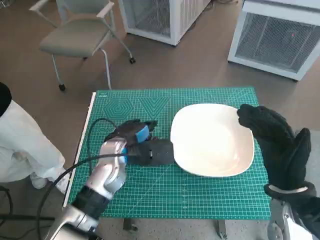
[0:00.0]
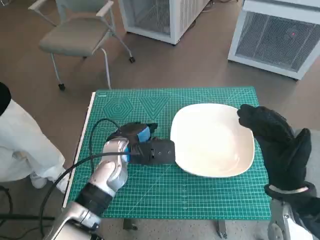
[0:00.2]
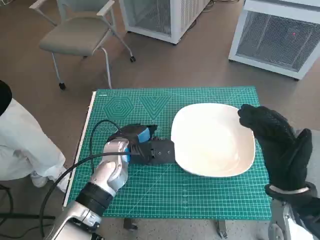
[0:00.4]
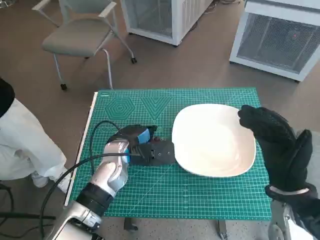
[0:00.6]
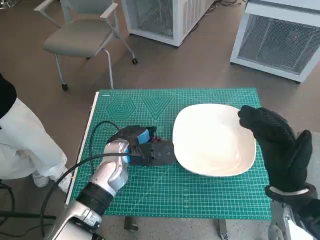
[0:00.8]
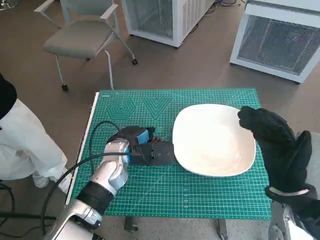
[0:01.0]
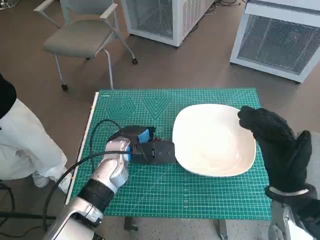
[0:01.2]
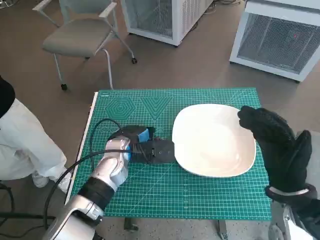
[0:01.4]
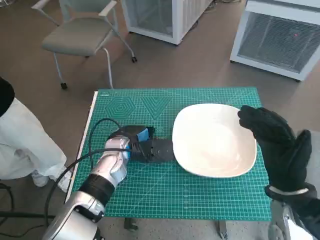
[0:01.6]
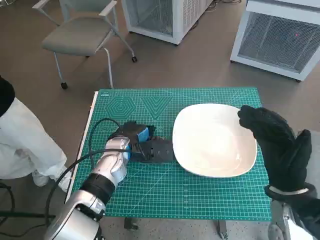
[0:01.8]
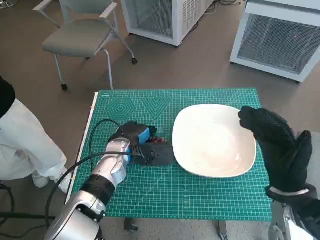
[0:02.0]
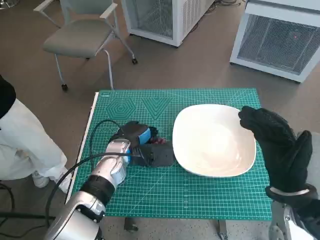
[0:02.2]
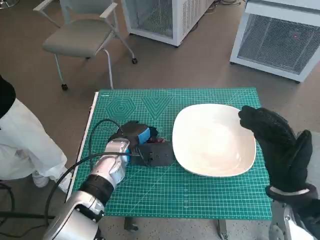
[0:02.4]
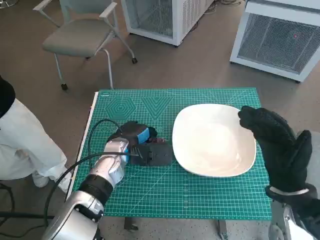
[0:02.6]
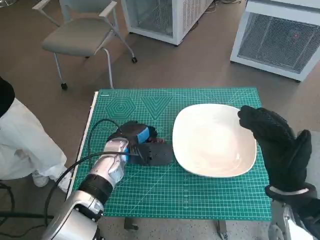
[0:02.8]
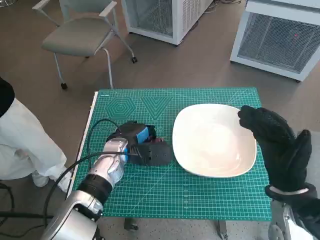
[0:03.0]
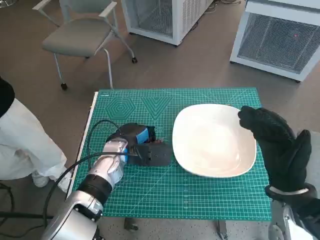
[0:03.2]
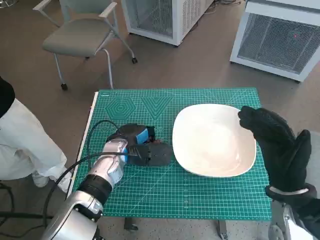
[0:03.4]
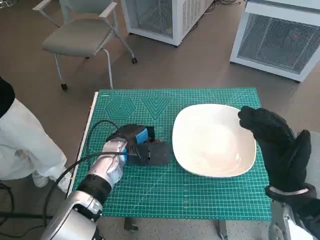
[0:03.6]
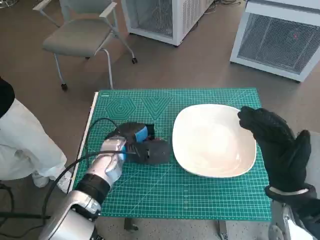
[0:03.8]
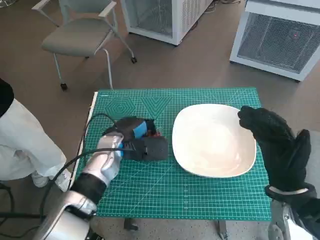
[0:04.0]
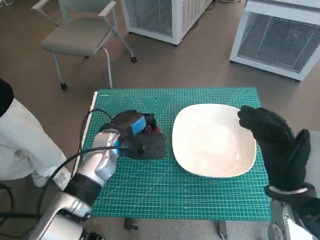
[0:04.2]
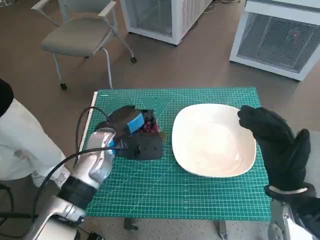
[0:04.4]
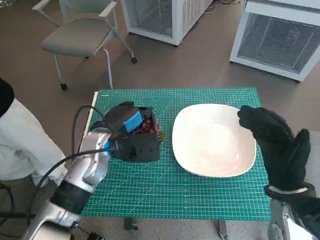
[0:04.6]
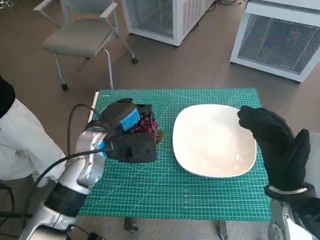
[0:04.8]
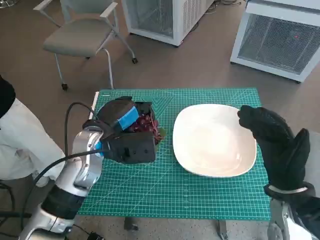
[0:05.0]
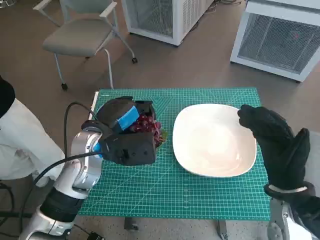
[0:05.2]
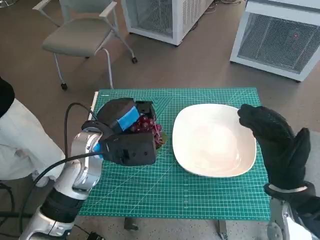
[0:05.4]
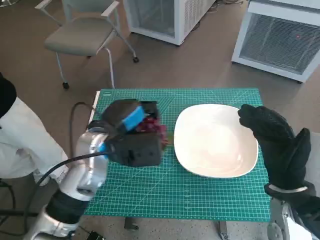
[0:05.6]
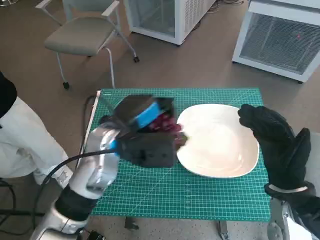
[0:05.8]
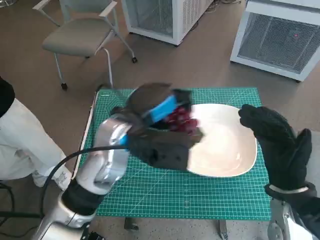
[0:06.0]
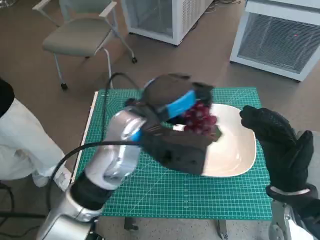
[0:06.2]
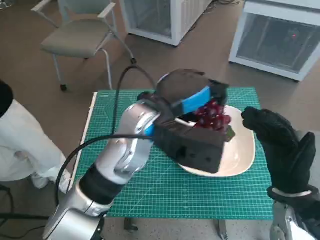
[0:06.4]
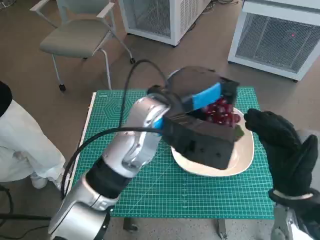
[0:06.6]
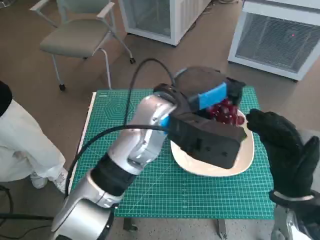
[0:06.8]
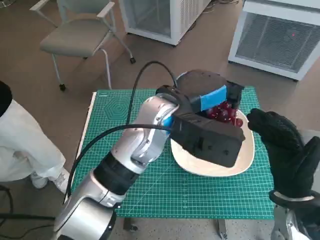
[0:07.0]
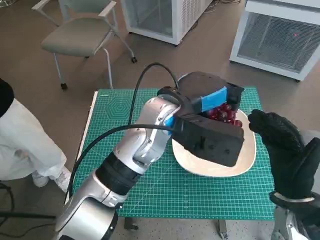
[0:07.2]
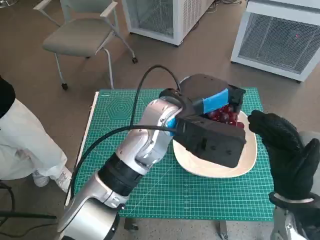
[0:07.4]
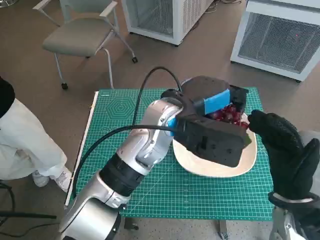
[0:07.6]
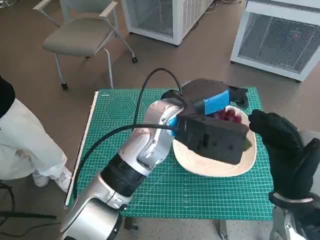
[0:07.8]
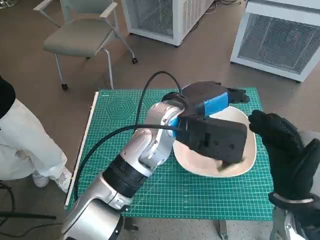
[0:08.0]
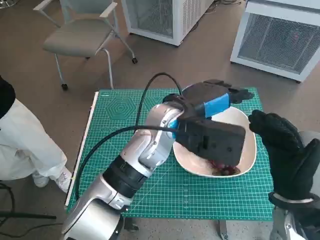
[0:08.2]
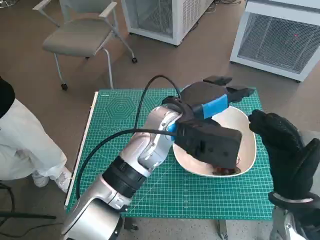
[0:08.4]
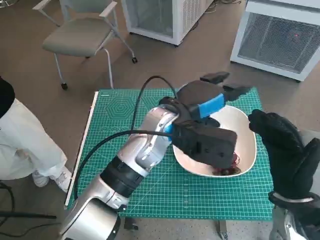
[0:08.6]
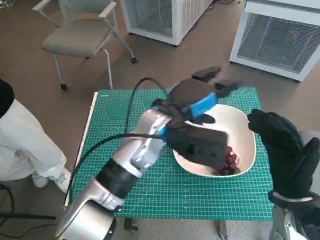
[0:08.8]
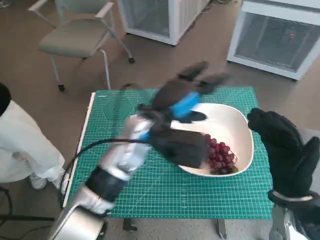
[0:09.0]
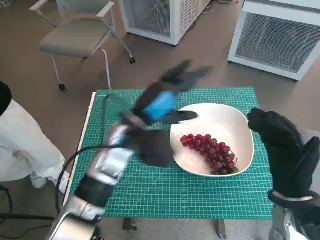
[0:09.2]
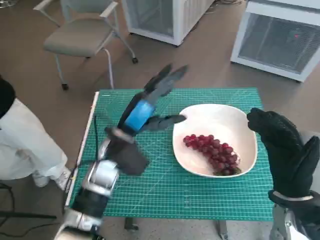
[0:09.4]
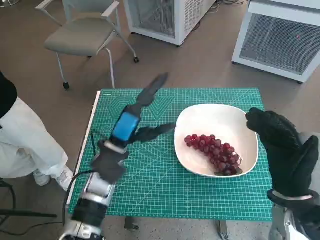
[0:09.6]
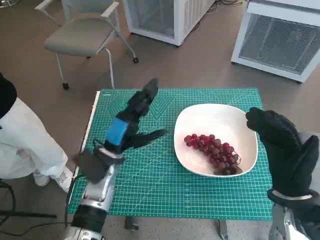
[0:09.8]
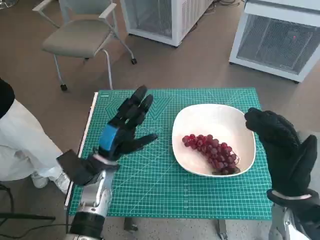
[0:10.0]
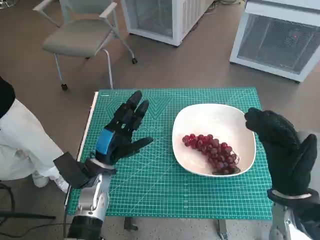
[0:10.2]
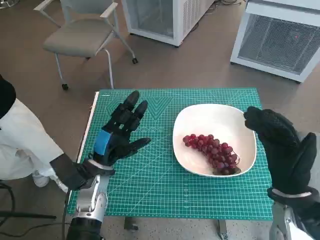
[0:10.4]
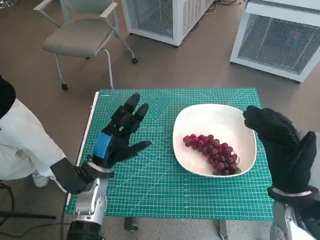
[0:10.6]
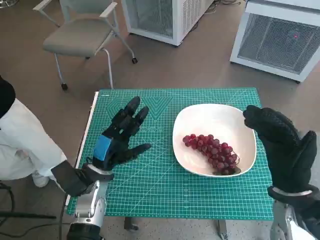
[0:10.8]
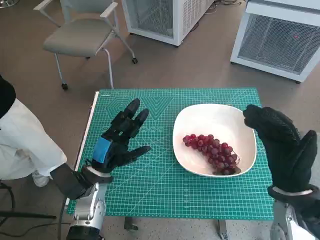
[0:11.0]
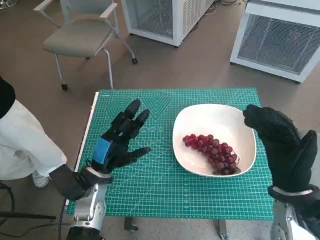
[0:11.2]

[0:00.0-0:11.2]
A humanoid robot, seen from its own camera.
Task of the whole recording: Pick up the grapes and put them on the plate.
Step, 0:00.0 to 0:03.4: Grasp the grapes with left hand.
Step, 0:03.6 to 0:08.0: Place the grapes in the plate with left hand.
0:00.0 to 0:03.2: There are only small adjustments of the hands.
0:03.2 to 0:04.8: The left hand is displaced upward by some 5 cm.
0:04.8 to 0:06.4: The left hand is displaced to the right and upward by some 15 cm.
0:08.0 to 0:09.6: The left hand travels to the left and downward by approximately 15 cm.
0:09.6 to 0:11.2: The left hand shifts about 5 cm downward.

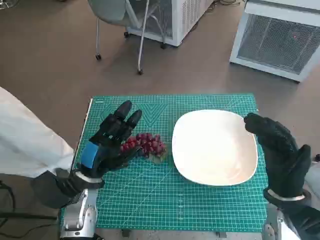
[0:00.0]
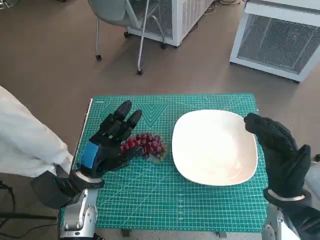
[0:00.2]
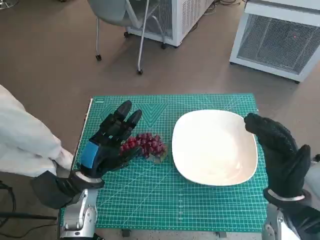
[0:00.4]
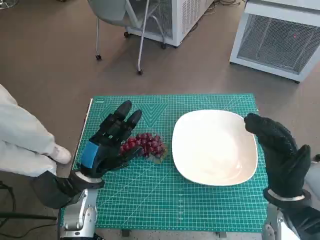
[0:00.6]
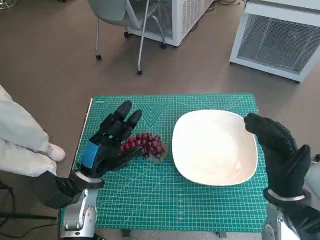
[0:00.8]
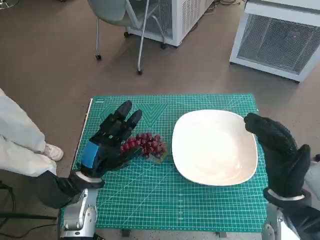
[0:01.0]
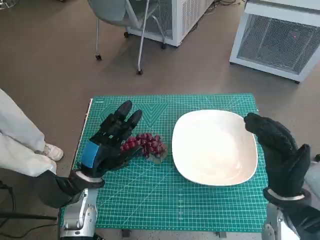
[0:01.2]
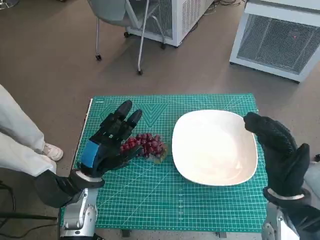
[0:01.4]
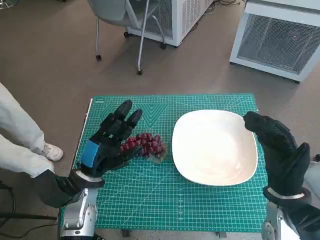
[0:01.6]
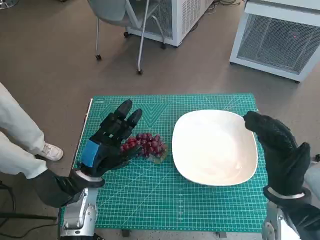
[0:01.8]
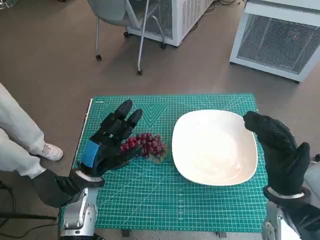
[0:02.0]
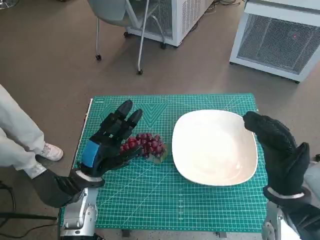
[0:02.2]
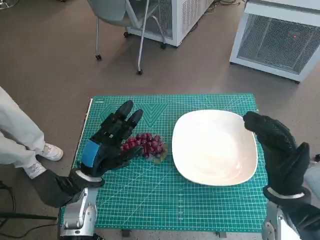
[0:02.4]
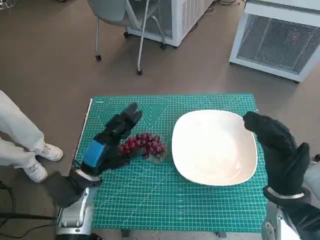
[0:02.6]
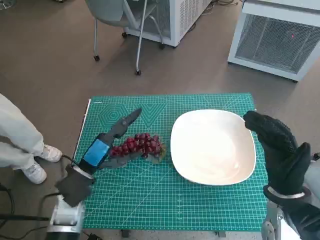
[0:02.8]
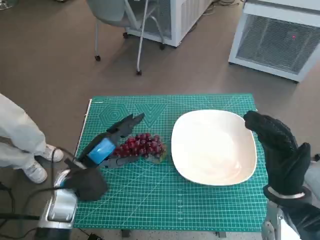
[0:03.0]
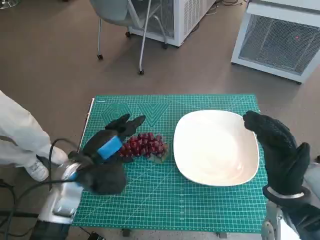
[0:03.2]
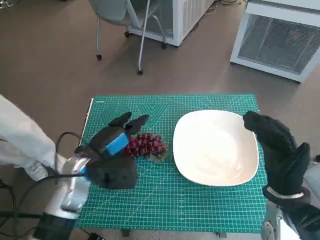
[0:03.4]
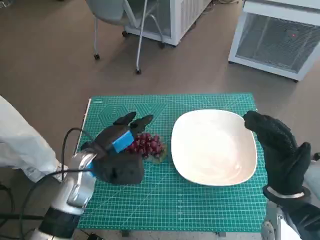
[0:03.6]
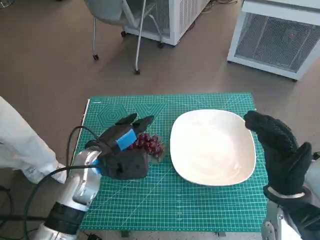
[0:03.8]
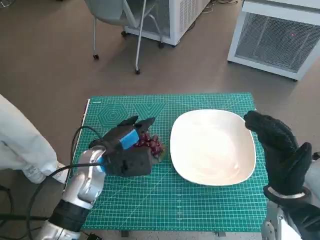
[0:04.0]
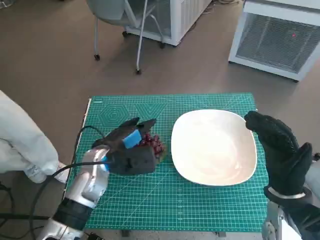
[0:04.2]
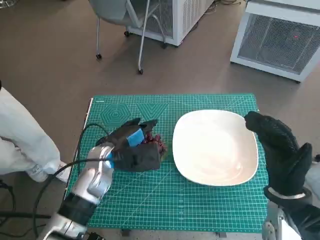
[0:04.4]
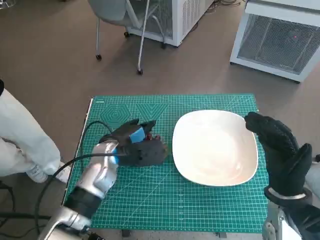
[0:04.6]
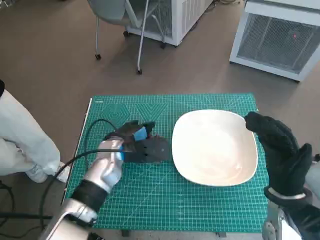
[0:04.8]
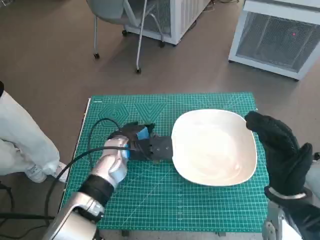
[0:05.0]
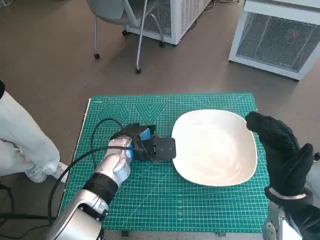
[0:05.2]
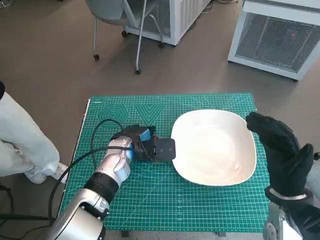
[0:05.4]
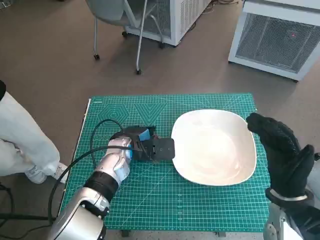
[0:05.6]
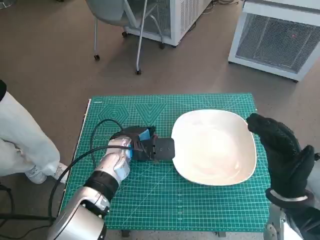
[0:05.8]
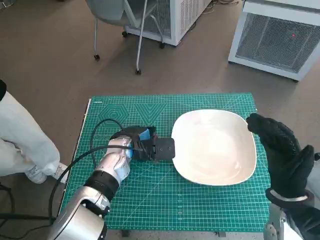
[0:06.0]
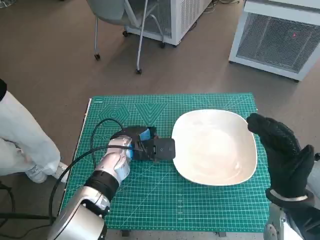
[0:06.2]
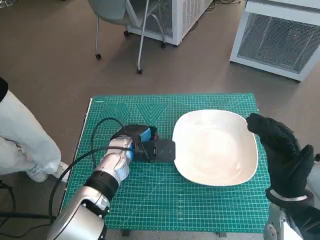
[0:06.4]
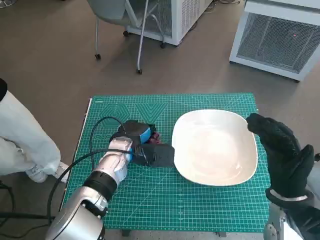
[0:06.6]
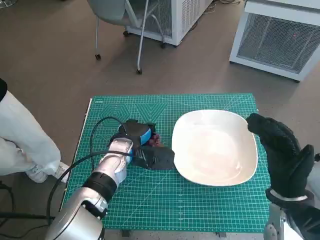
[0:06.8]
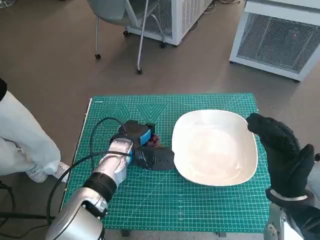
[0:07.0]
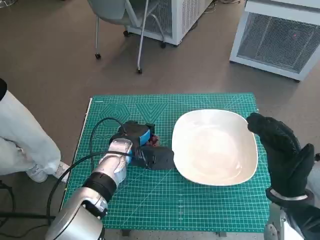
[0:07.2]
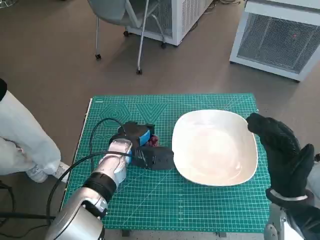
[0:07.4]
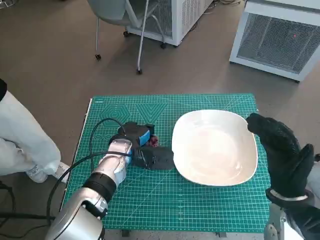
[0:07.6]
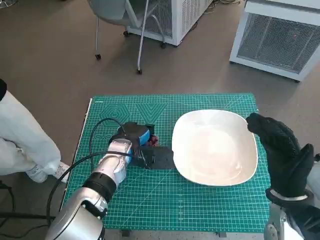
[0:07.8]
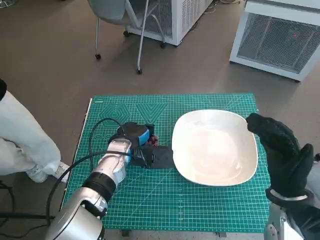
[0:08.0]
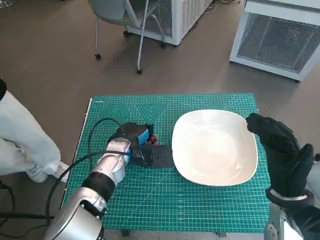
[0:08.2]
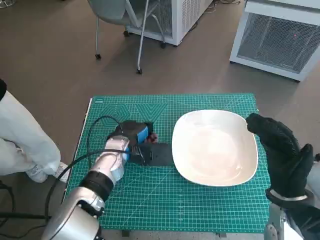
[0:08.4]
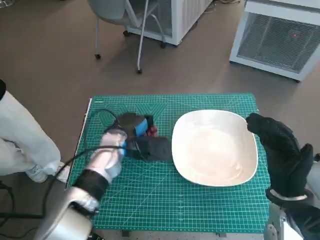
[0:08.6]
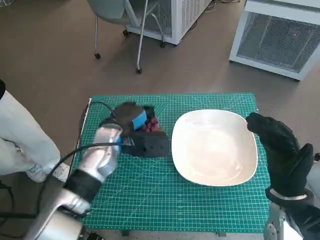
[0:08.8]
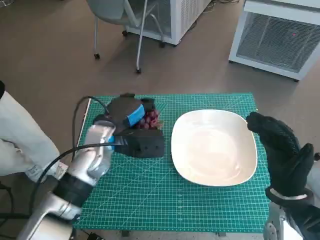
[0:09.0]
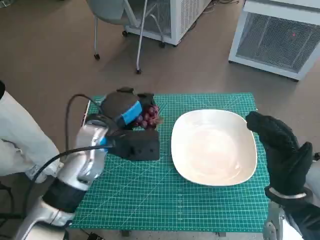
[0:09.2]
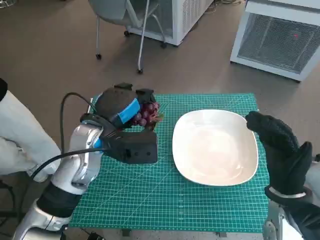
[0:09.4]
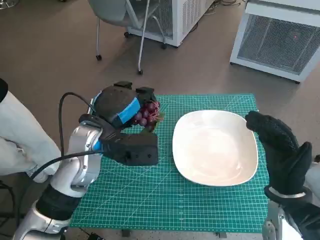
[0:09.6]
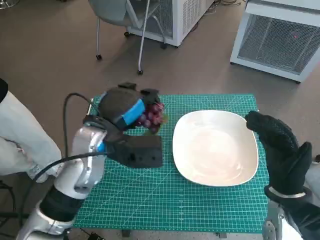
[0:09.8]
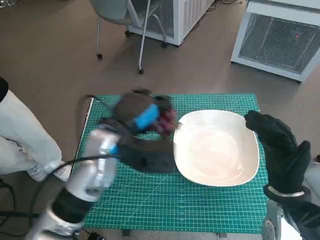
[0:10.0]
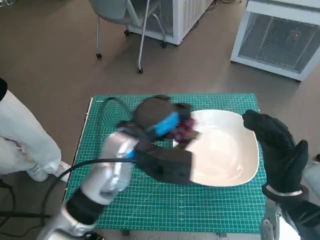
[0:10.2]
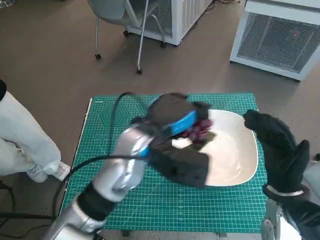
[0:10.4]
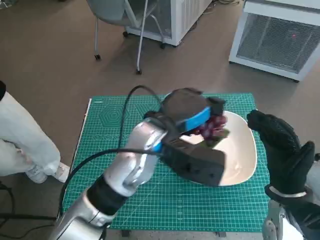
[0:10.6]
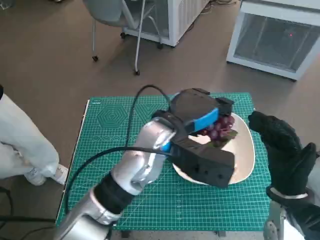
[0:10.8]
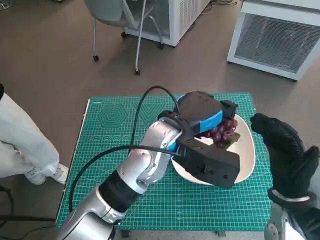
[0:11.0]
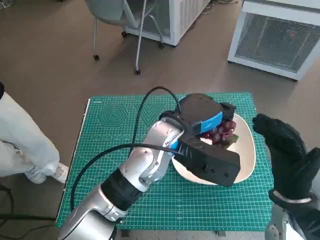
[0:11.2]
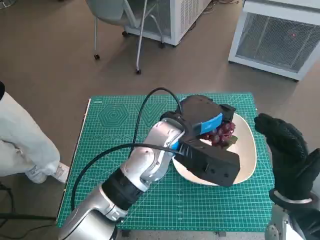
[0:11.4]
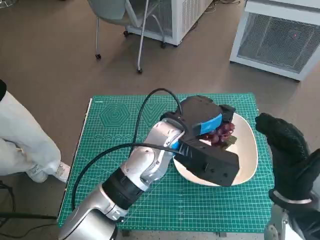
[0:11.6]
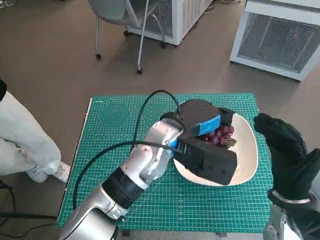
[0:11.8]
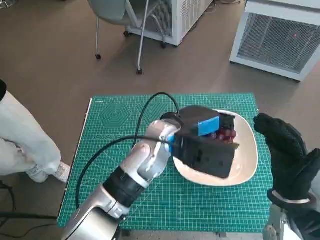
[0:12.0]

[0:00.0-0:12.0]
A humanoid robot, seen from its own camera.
Task of the whole recording: Pick up the grapes and put them on the plate.
Step, 0:00.0 to 0:06.8: Grasp the grapes with left hand.
0:03.0 to 0:04.4: The left hand heads to the right and forward, covering some 10 cm.
0:04.4 to 0:06.0: The hands stay close to where they were, moving slightly.
0:06.0 to 0:07.6: The hands make only small movements.
0:07.6 to 0:09.0: The left hand is displaced upward by about 10 cm.
0:09.0 to 0:10.4: The left hand goes about 5 cm to the right.
0:10.4 to 0:12.0: The left hand moves some 5 cm.
